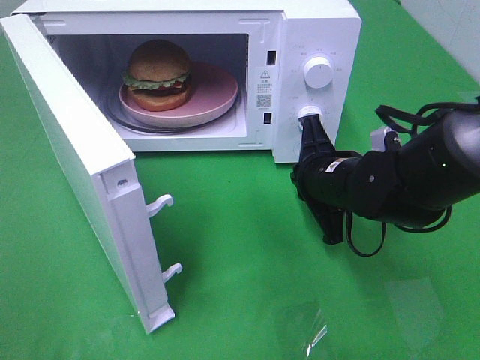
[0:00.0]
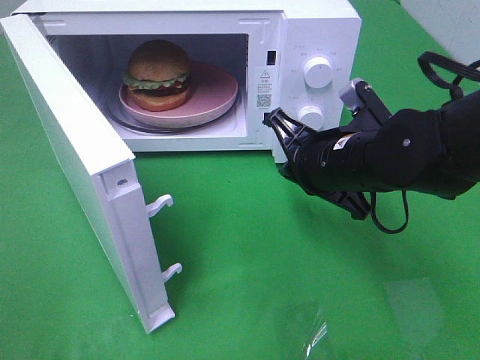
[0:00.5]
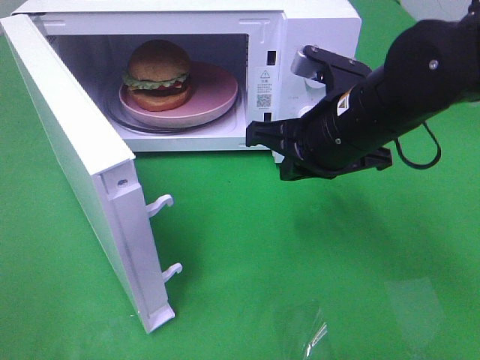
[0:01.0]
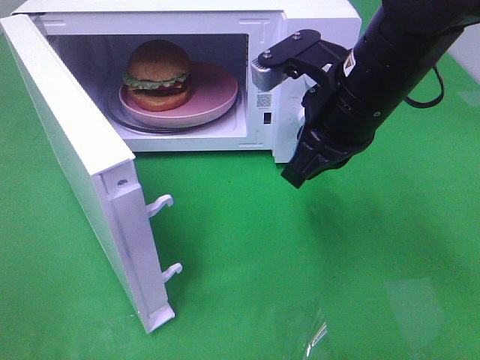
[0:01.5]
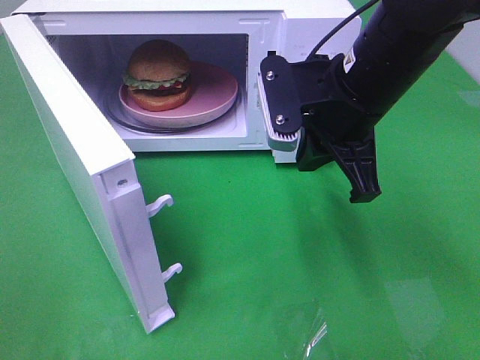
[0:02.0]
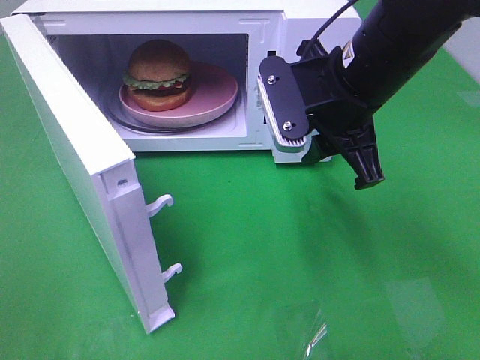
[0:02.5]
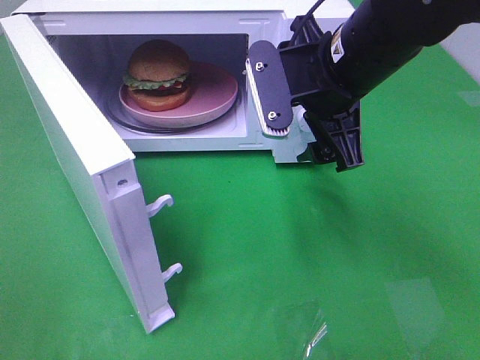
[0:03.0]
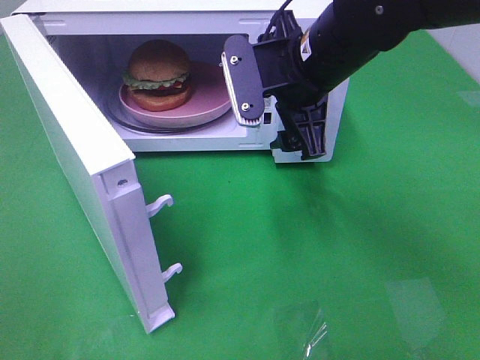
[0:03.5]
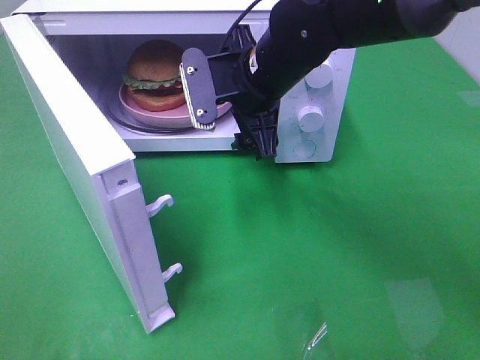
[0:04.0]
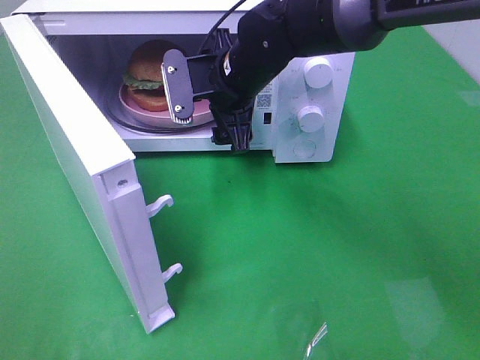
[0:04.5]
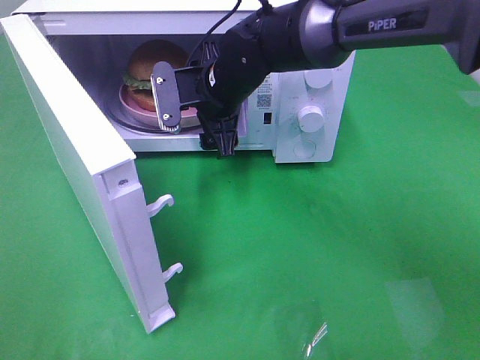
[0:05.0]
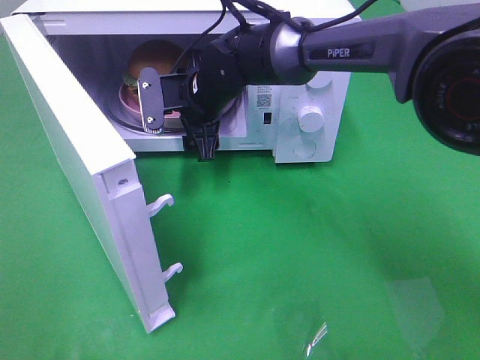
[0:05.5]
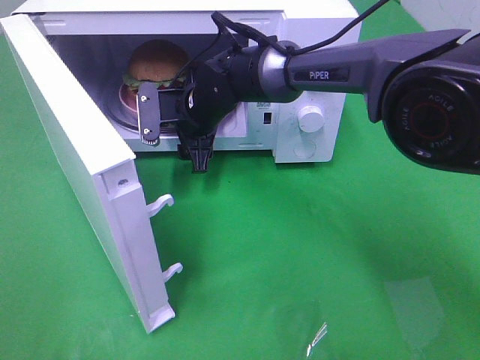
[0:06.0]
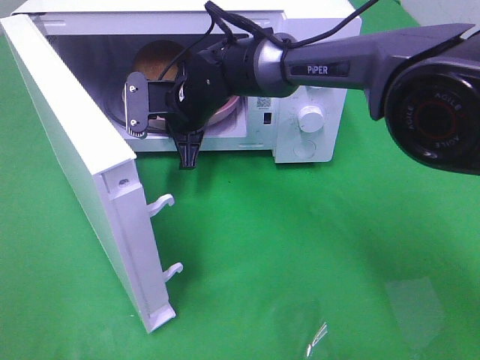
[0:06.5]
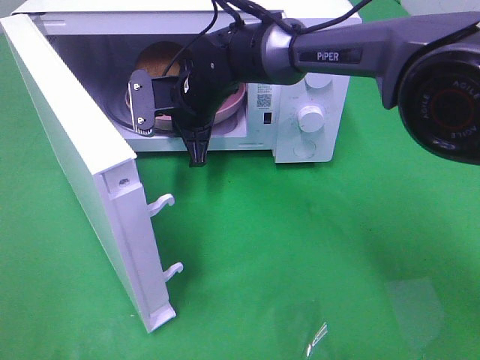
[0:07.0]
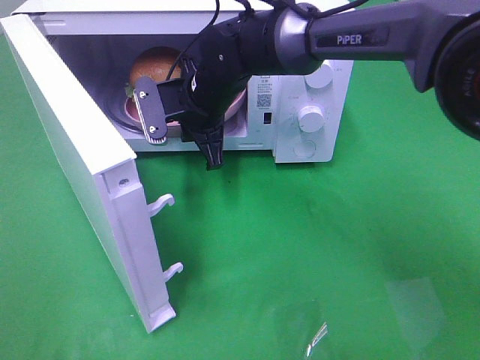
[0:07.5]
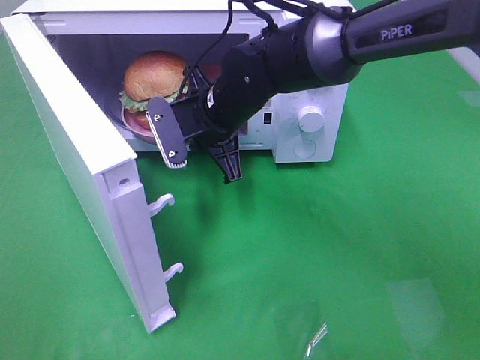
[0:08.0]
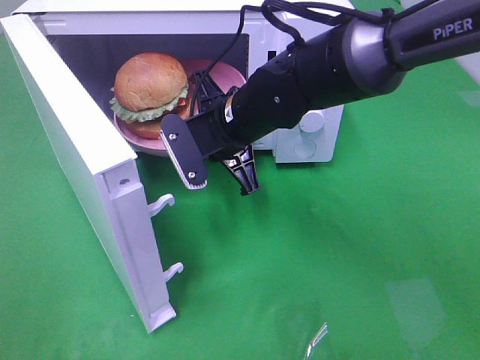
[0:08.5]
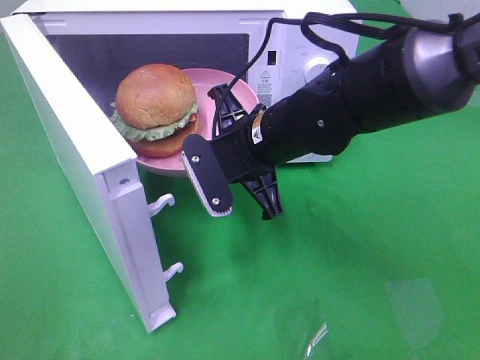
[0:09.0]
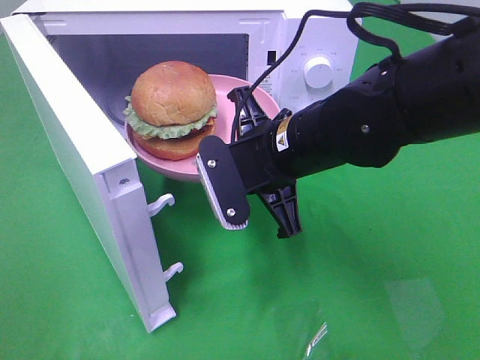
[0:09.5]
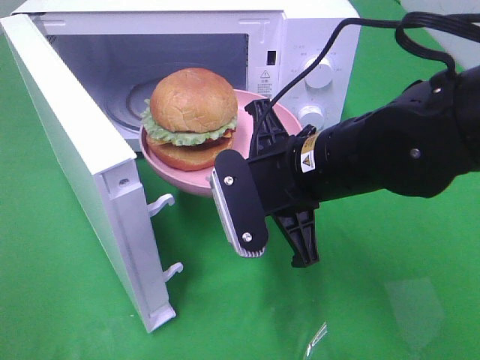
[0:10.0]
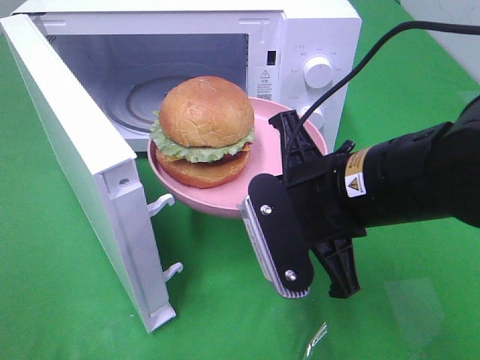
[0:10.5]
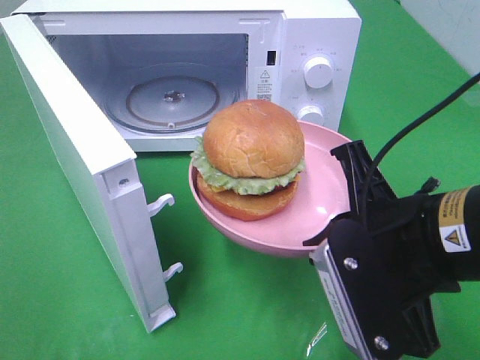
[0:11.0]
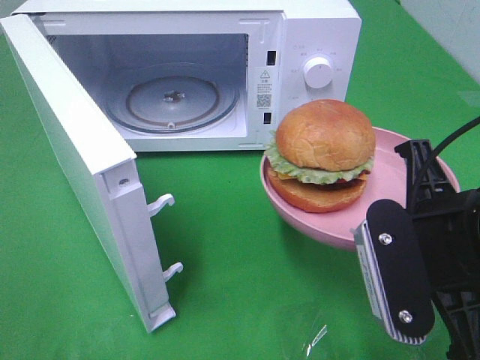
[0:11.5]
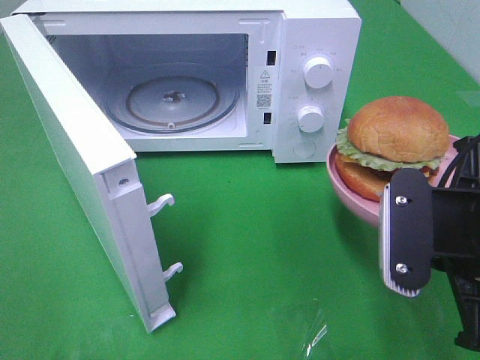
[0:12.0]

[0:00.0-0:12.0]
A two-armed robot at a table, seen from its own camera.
Task of the whole recording: Heat the burger.
Step, 0:00.0 to 0:06.5: Right hand: grab the plate with the hamburger.
0:00.0 to 0:02.0: The right gripper shifts about 15 cm upward.
0:02.0 to 0:04.0: The right gripper travels to the left and forward by about 10 cm, and opens its fingers.
0:04.0 to 0:06.0: The right gripper is displaced downward, forward and to the left by roughly 15 cm.
0:06.0 to 0:08.0: The right gripper shifts roughly 5 cm backward, and closes.
0:08.0 to 0:10.0: The right gripper is displaced backward and to the right by roughly 15 cm.
0:10.0 to 0:12.0: The right gripper is displaced to the right and backward by roughly 15 cm.

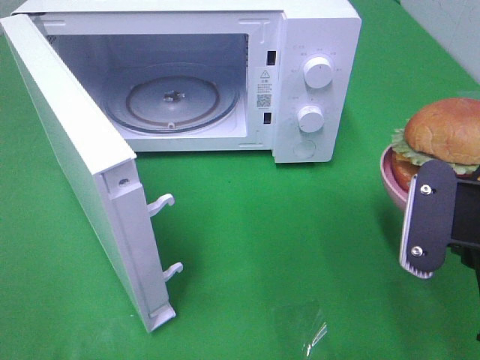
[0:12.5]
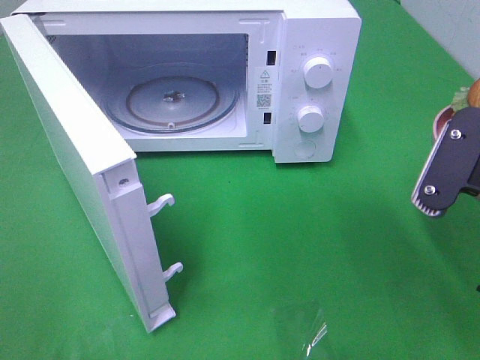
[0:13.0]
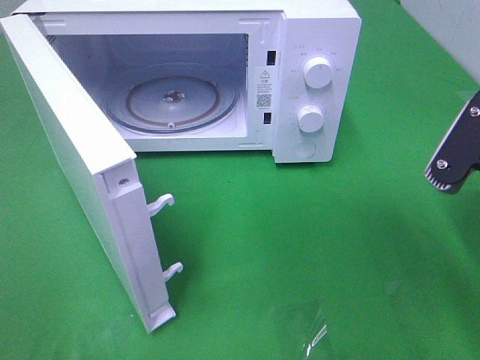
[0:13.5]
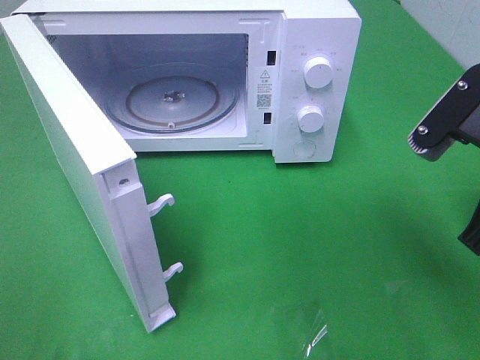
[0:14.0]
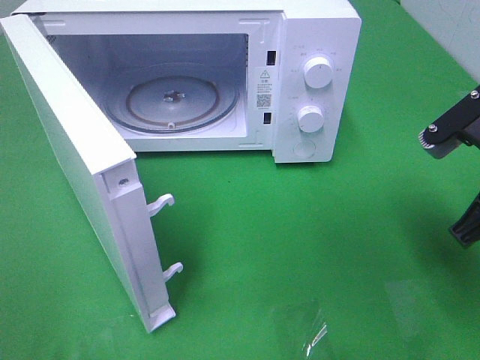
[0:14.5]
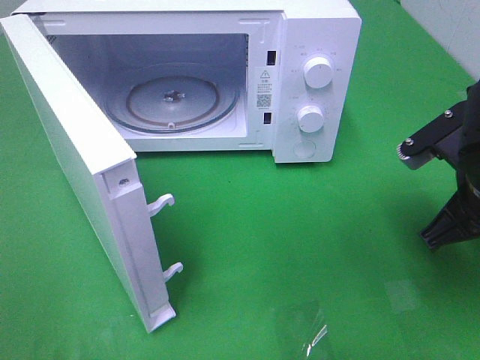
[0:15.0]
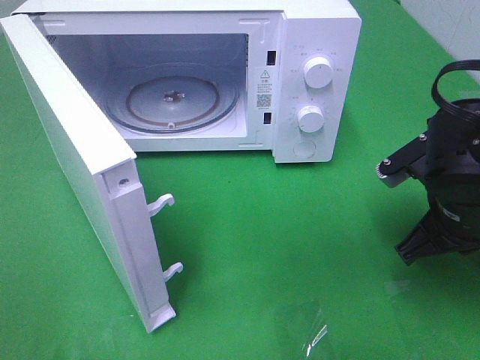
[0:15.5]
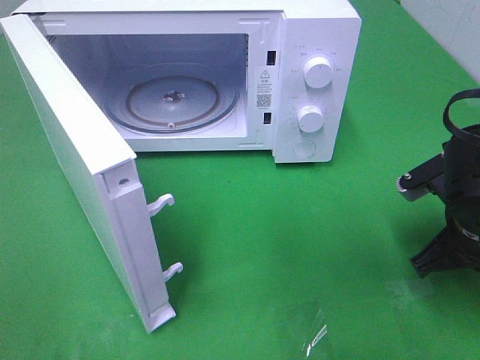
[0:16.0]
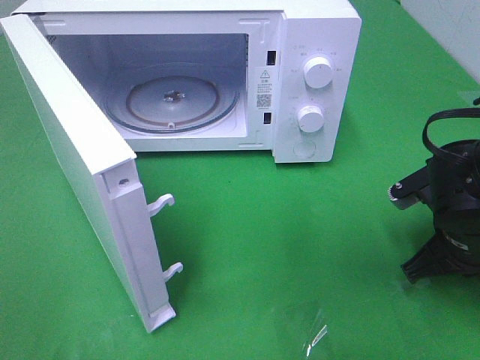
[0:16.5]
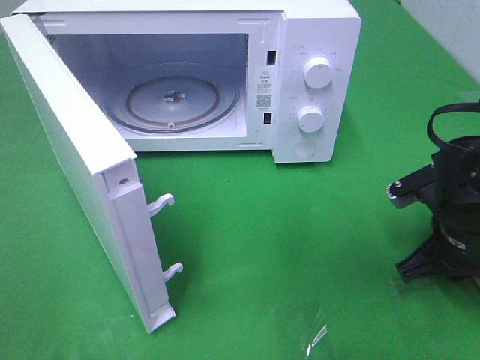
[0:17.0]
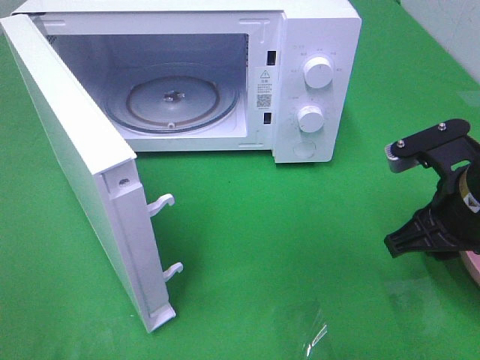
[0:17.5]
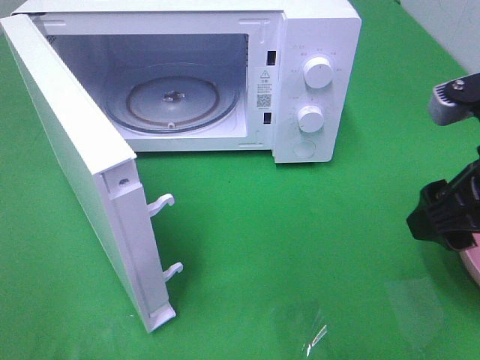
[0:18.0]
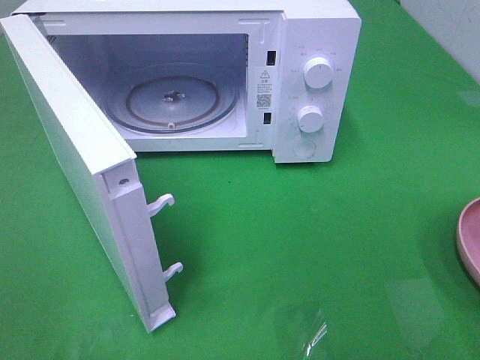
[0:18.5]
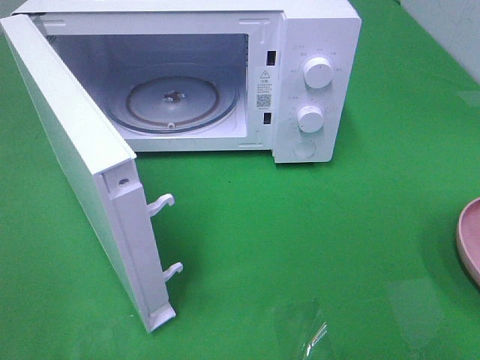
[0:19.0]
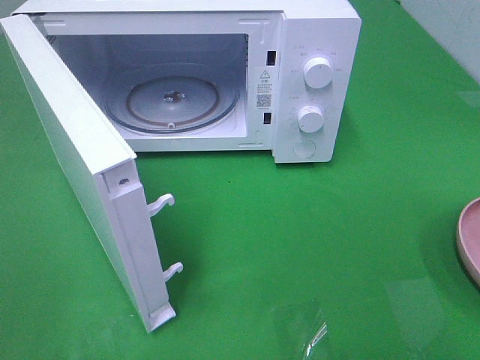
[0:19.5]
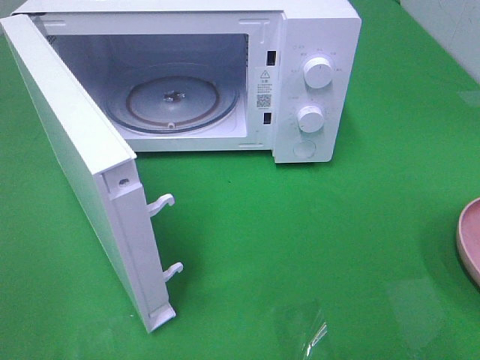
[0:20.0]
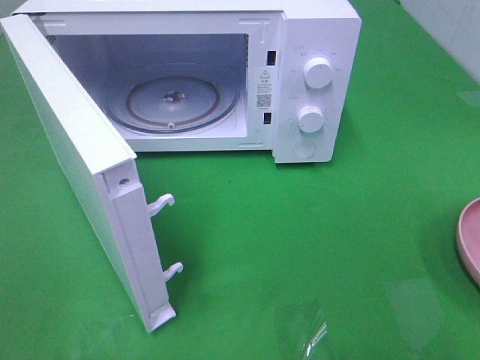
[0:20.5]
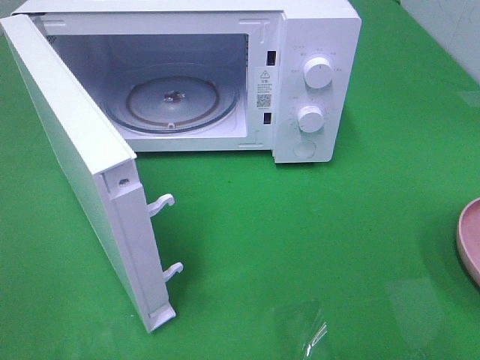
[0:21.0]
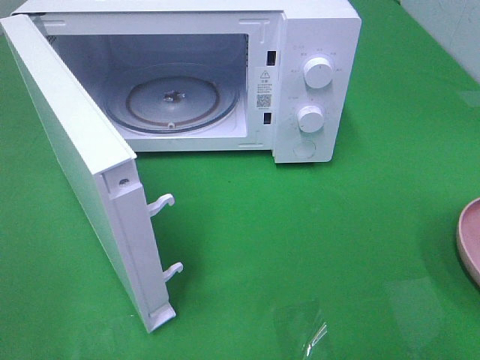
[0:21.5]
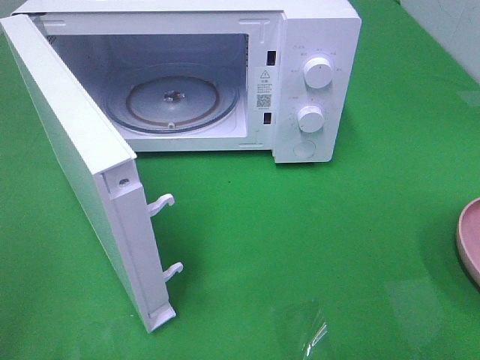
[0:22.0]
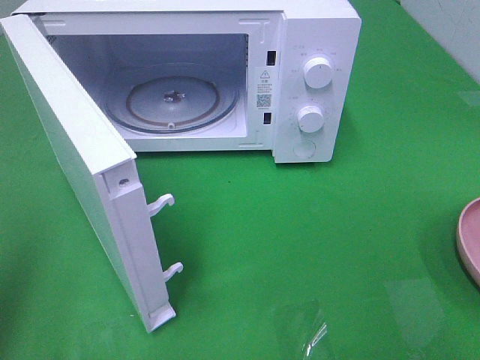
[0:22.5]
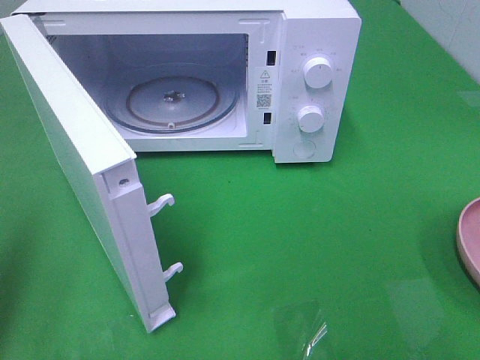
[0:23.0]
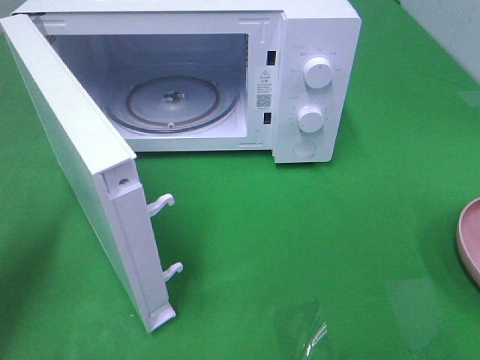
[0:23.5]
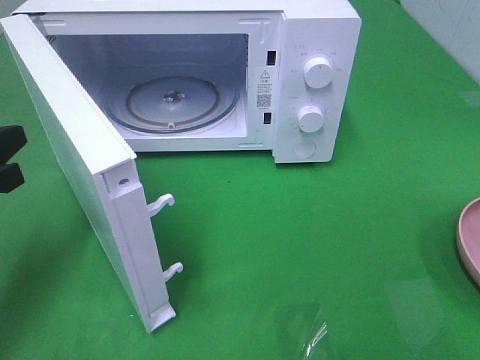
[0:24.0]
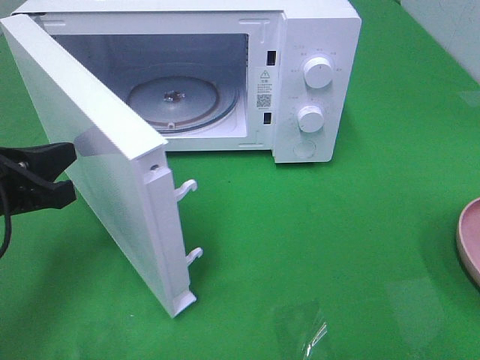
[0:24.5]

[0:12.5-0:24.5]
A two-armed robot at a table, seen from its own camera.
Task of the whole recording: Heat the burger.
Step, 0:12.5 to 0:17.5: Right hand: place the plate on the table.
0:12.5 to 0:14.5: The right gripper shifts roughly 5 cm forward.
0:14.5 to 0:16.5: The right gripper heads downward, covering approximately 10 cm.
0:16.5 to 0:18.5: The right gripper heads upward and backward, covering about 25 cm, and opens.
0:22.5 to 0:24.5: The left gripper is displaced downward, forward and to the right by approximately 20 cm.

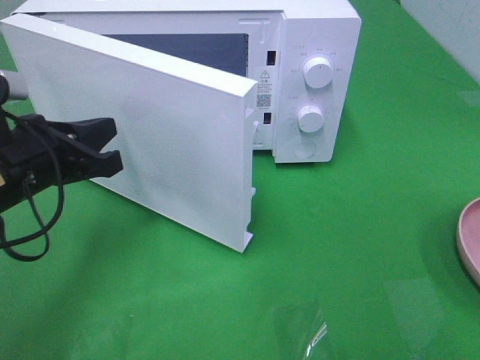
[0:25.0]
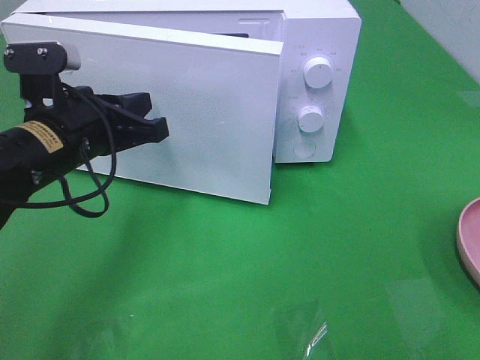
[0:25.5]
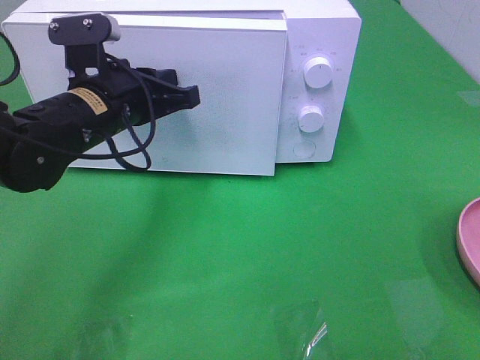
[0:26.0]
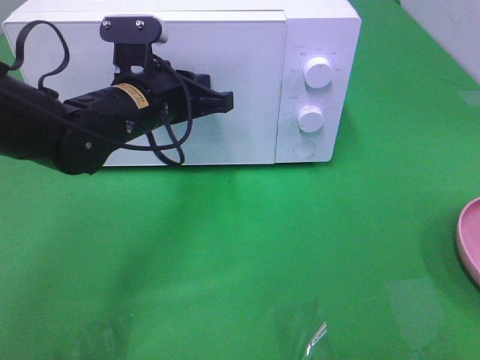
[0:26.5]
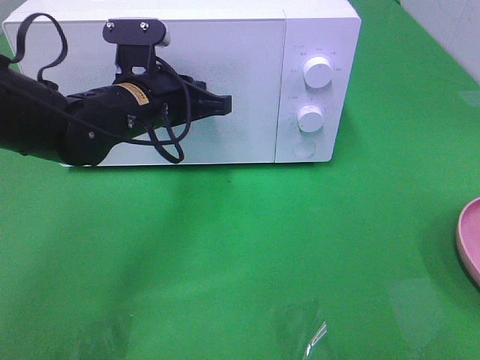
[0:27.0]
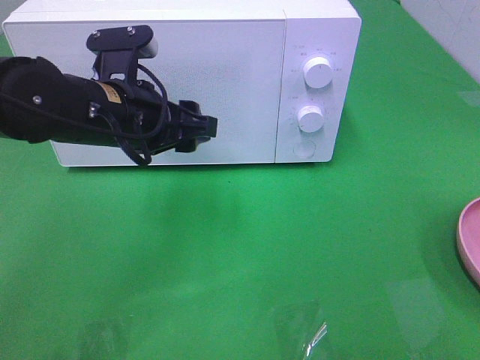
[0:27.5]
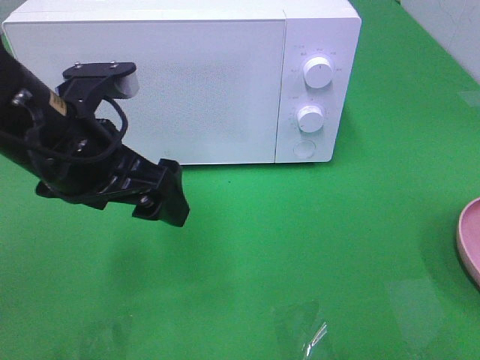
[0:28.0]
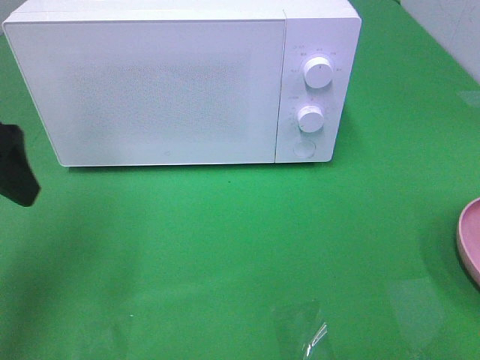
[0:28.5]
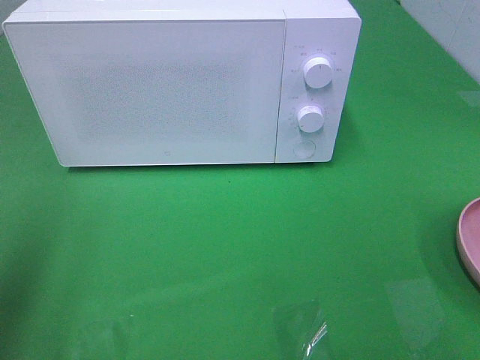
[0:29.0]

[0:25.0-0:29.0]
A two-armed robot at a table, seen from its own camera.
Task of the whole recording: Heat the burger.
Step, 0:25.0 to 0:27.5: Left hand: close the microwave door.
0:25.0 to 0:27.0: The left gripper moves to the right and forward, about 15 cm.
0:27.0 to 0:29.0: The left gripper is displaced to the left, backward and upward by about 30 cm, and opens its fingers.
